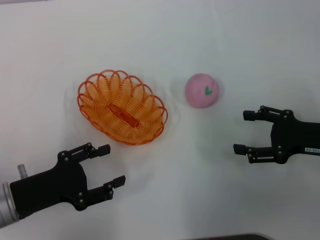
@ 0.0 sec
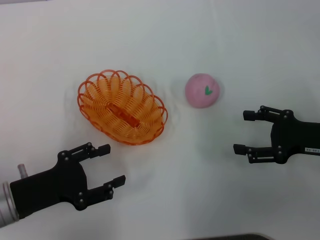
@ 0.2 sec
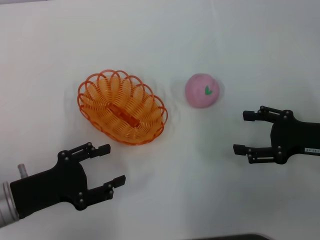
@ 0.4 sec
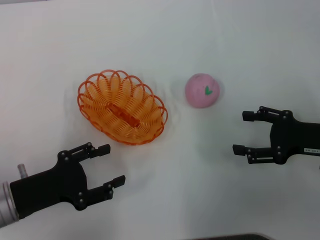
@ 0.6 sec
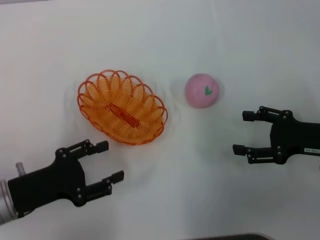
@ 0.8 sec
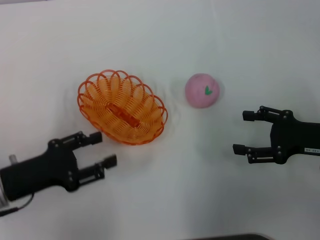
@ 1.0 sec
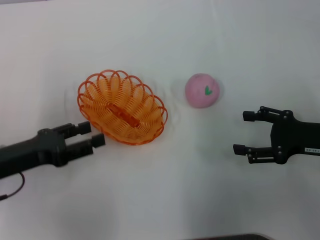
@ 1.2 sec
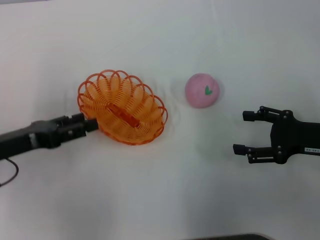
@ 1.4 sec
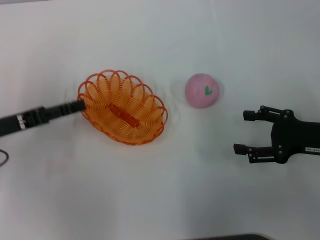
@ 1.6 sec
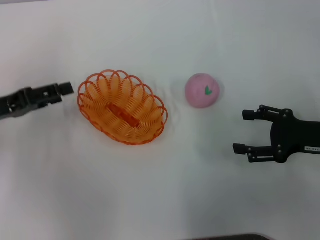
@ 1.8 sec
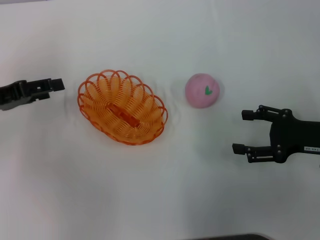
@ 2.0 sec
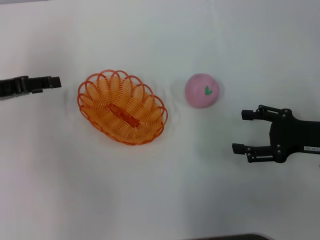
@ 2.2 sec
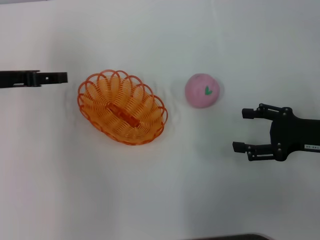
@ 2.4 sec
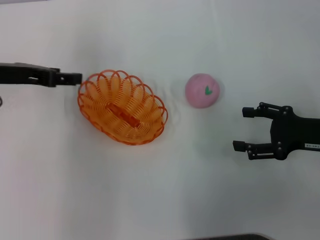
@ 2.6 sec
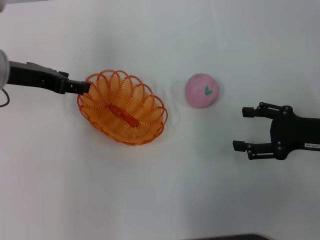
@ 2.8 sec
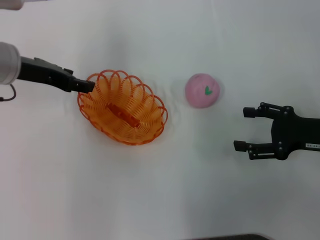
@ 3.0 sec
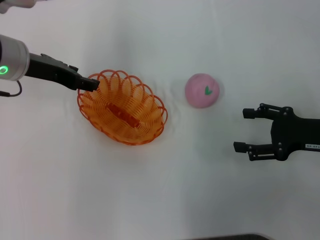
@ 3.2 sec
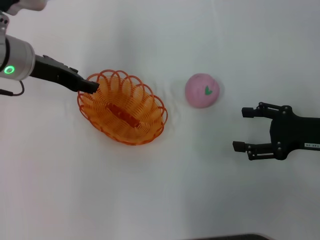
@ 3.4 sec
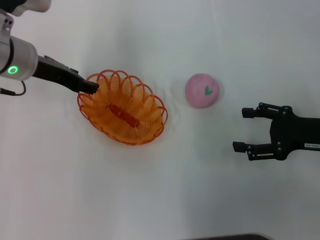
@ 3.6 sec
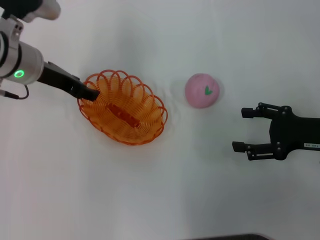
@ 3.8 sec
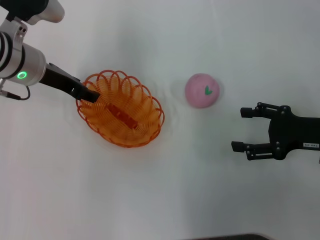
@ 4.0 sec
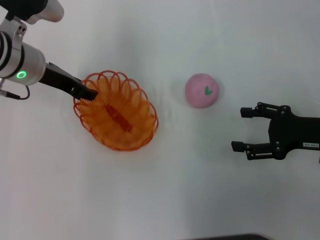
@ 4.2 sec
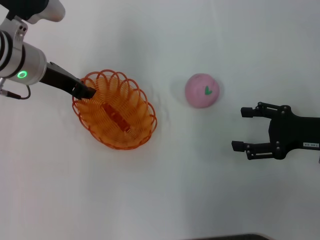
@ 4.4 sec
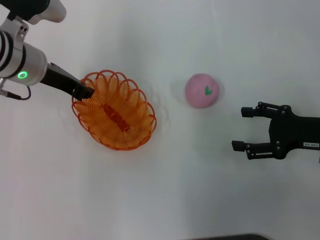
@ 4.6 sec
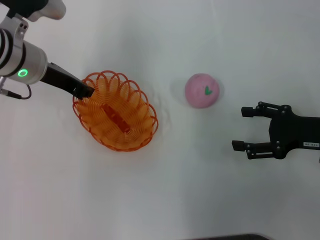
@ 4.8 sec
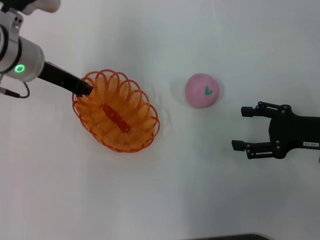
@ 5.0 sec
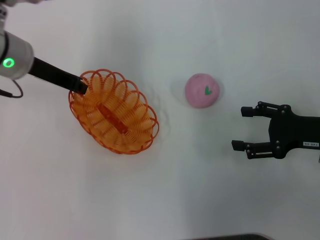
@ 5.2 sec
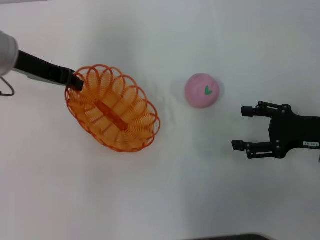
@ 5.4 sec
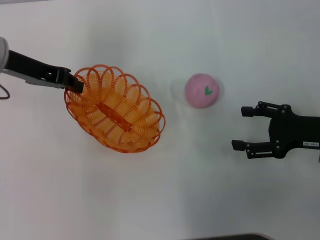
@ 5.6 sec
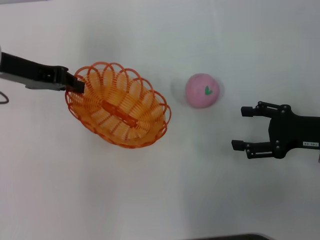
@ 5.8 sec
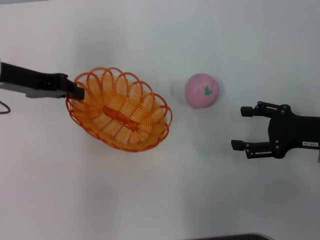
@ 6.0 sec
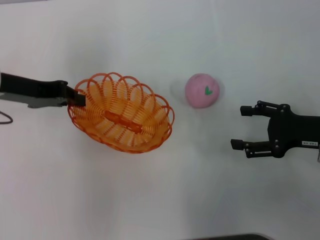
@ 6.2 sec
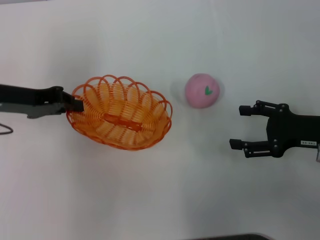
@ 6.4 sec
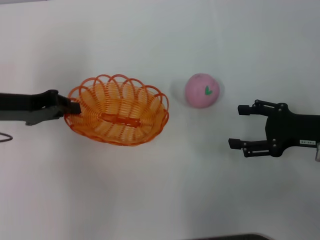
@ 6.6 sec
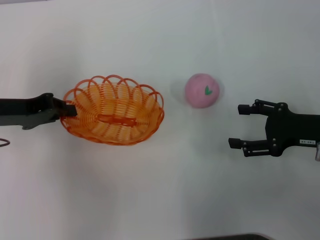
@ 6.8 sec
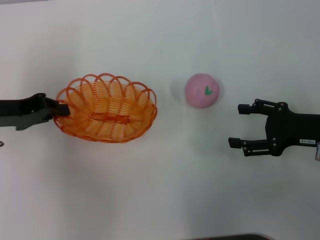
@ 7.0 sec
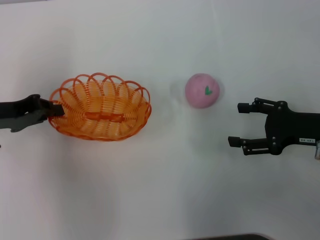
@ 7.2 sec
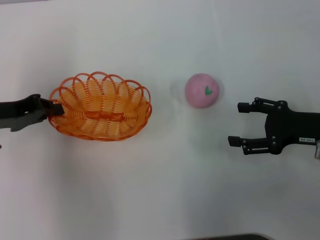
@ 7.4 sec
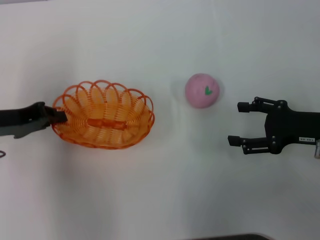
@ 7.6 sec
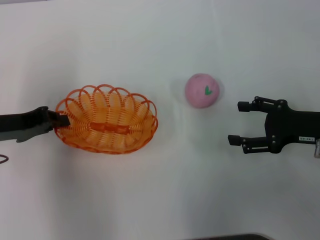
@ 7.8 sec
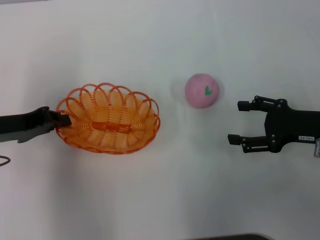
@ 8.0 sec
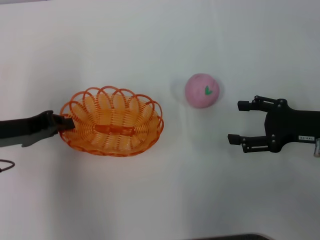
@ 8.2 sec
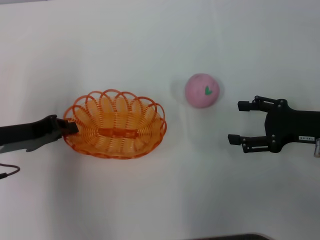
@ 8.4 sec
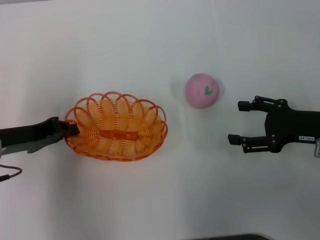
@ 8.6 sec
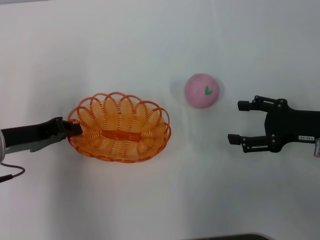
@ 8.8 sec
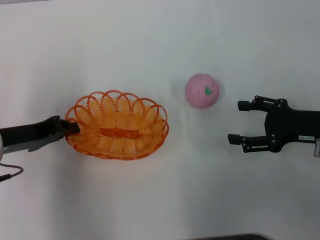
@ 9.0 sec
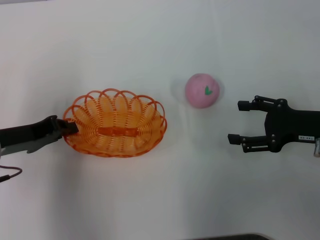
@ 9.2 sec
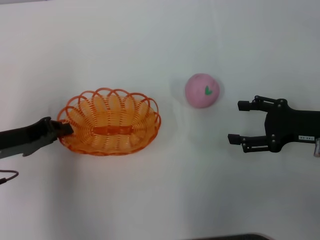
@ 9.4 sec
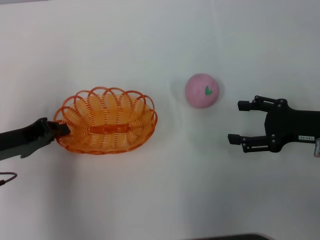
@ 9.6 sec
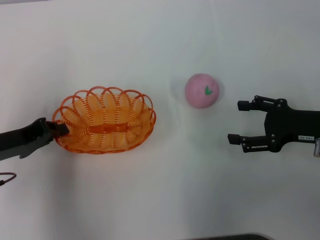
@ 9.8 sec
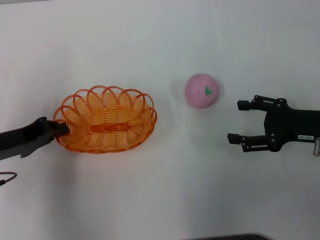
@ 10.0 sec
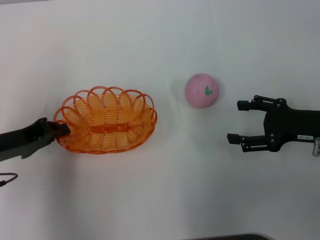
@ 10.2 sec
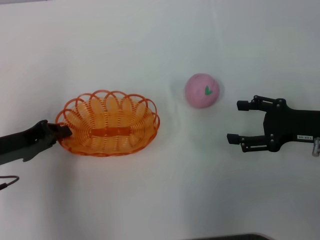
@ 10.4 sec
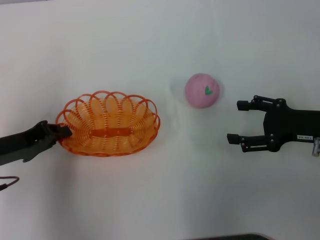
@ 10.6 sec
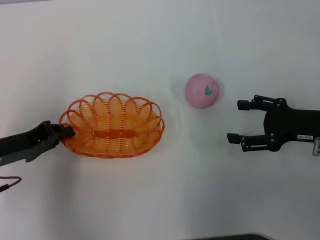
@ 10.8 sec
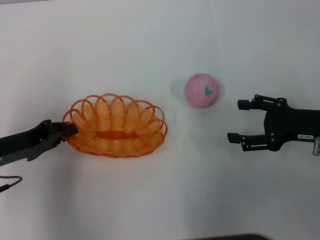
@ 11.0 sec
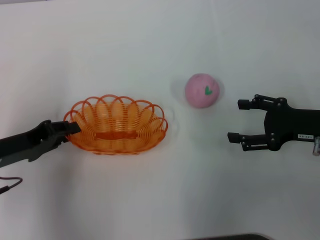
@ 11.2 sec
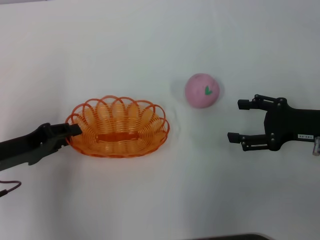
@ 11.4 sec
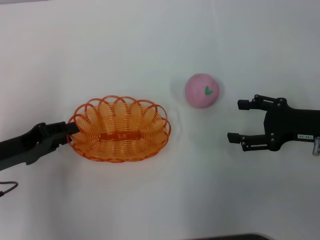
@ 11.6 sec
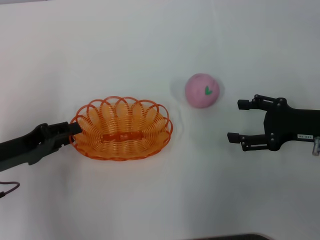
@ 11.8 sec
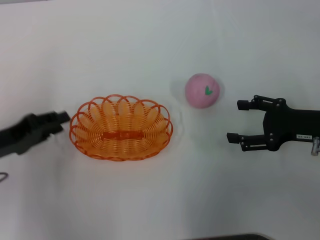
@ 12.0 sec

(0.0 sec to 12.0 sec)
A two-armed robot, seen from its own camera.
Step, 0.0 sec - 5.6 sec: Pick up the basket with the left gripper.
Step, 5.8 sec - 12.0 sec: Place the basket in the center of view with the left gripper.
0.0 sec - 1.6 sec: The left gripper moves forward and upward, some 10 cm.
1.6 sec - 3.0 sec: The left gripper shifts some 15 cm forward, to the right and upward.
3.0 sec - 4.4 sec: The grippers make only small movements.
4.4 sec - 6.0 sec: The left gripper moves to the left, about 5 cm, and closes up.
6.0 sec - 7.6 sec: The left gripper is displaced backward and downward by about 10 cm.
7.6 sec - 10.4 sec: The grippers make only small movements.
10.4 sec - 12.0 sec: The left gripper opens.

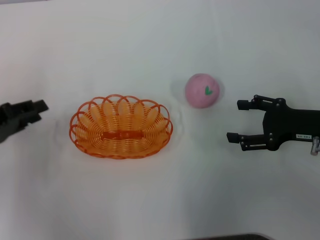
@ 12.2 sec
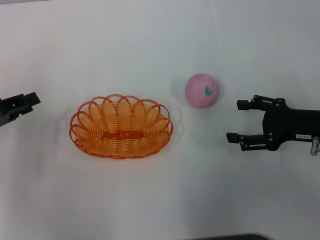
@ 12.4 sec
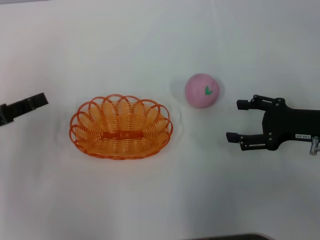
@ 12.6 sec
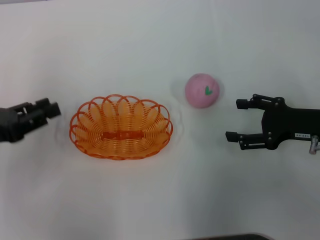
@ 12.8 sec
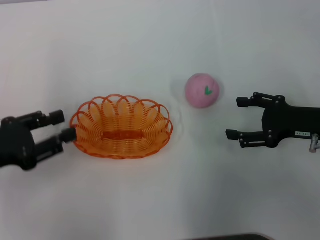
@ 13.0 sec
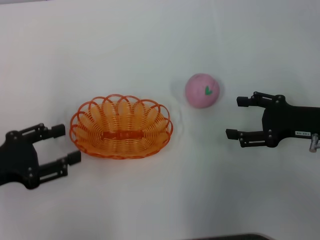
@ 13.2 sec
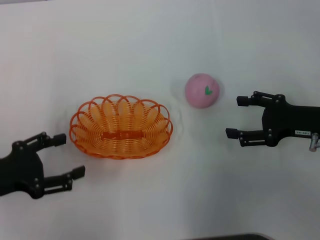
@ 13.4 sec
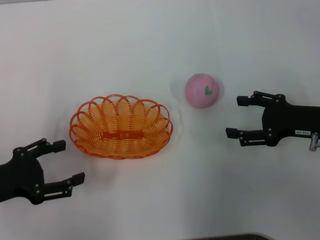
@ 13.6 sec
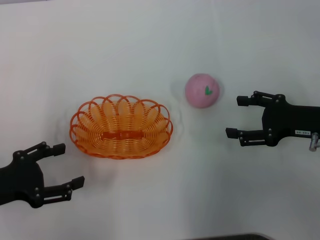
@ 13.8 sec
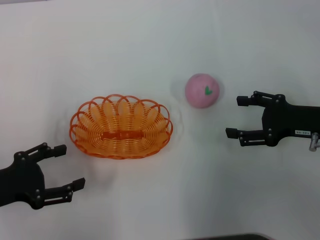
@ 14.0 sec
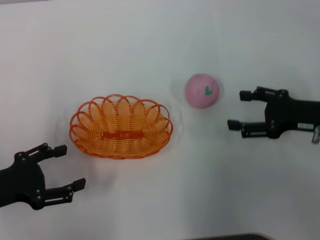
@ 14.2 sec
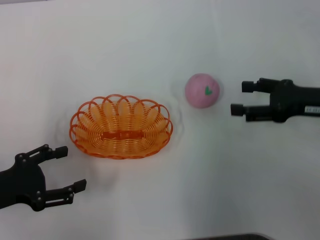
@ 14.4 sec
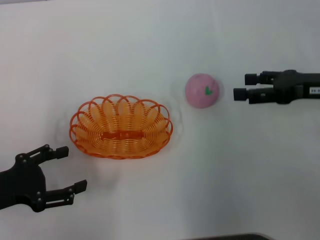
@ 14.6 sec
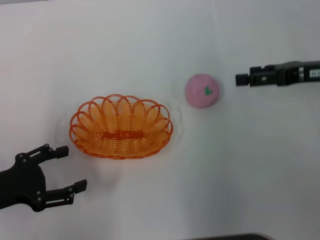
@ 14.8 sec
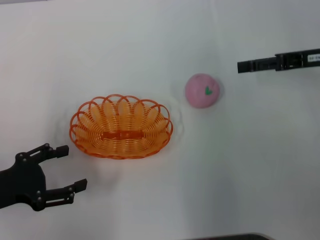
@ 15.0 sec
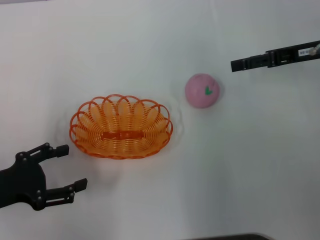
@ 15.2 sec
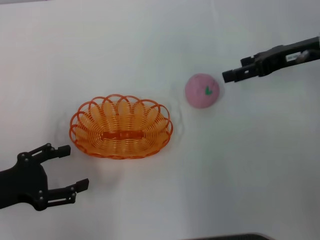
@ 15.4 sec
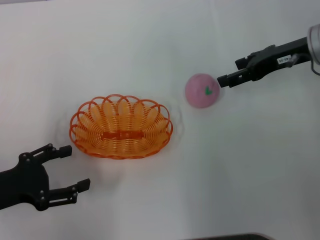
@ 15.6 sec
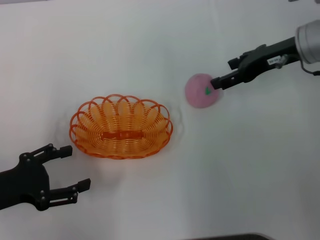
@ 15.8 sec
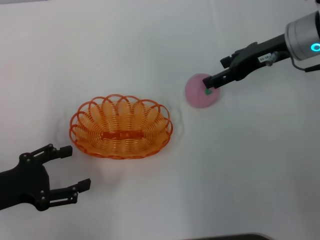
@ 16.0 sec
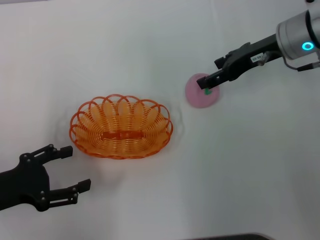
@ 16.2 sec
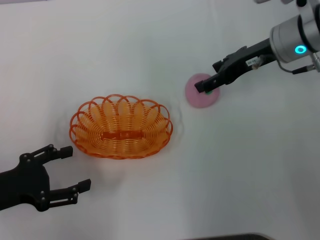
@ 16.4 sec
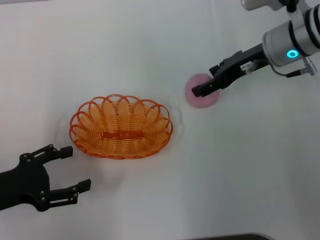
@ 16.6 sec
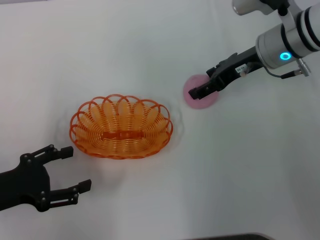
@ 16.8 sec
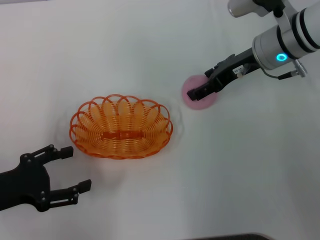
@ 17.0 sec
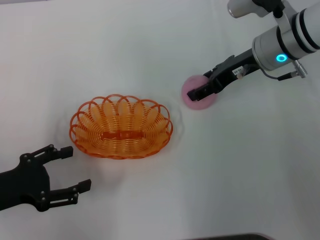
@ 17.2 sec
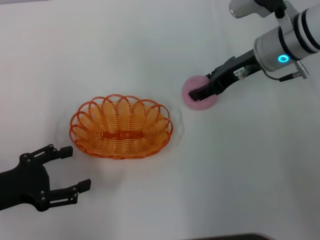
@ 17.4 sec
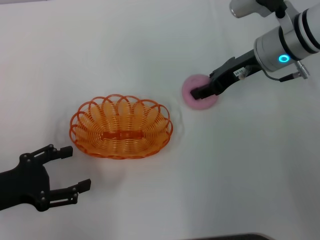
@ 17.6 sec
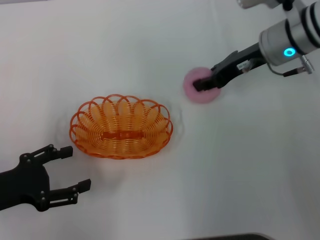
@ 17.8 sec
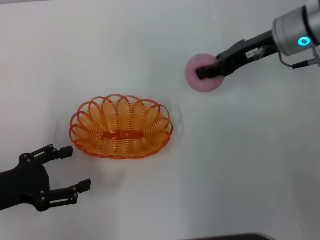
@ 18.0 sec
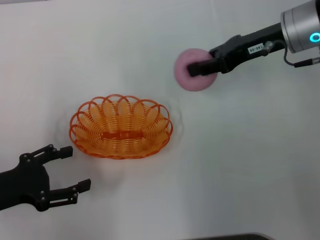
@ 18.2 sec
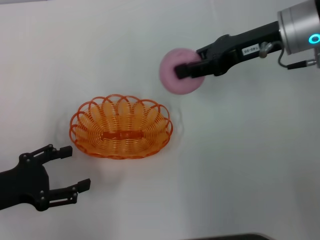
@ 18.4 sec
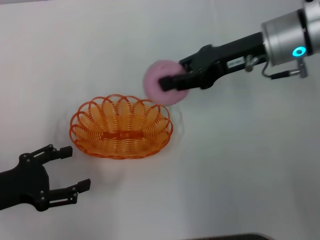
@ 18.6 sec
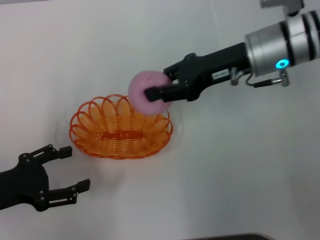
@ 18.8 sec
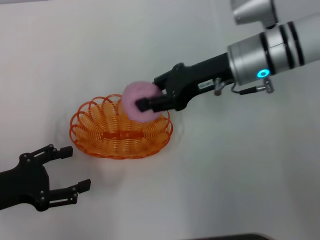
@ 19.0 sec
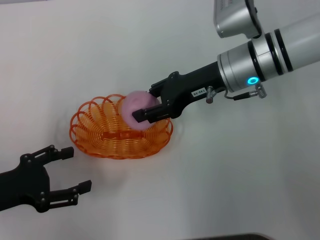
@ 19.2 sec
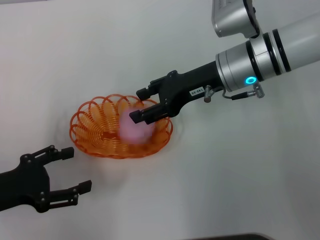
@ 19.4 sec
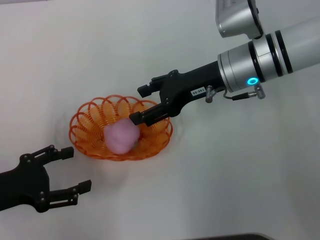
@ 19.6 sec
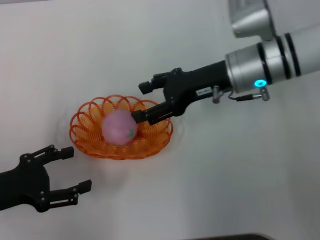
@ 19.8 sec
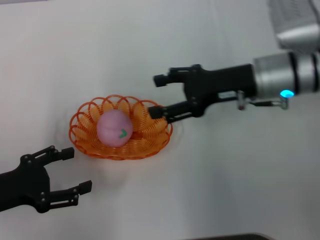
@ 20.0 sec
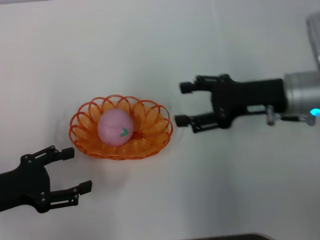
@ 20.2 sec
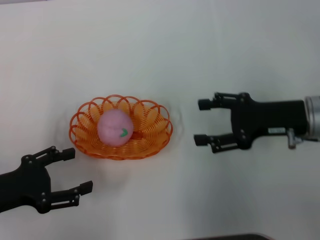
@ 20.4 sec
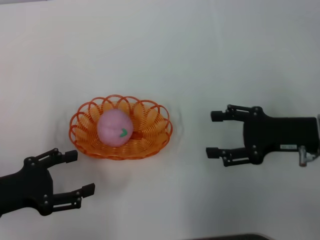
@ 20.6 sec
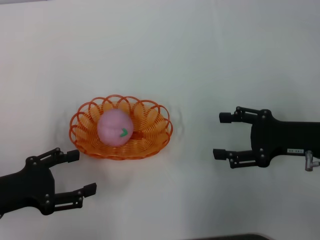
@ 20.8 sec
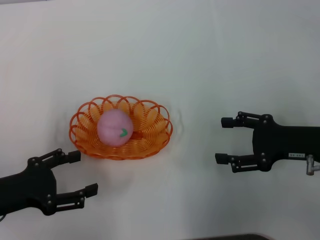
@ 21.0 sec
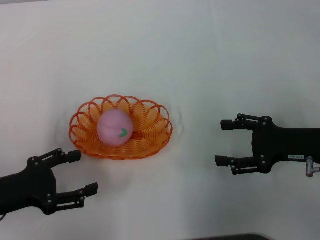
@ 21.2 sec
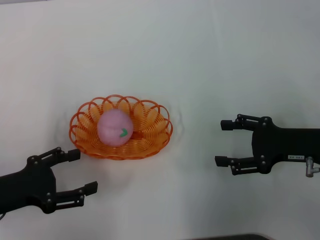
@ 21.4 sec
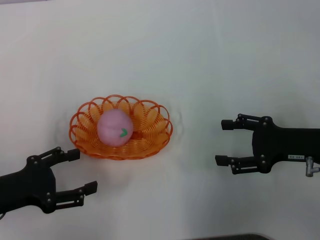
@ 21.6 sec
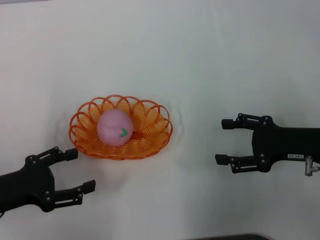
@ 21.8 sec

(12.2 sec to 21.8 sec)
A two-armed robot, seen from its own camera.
Step, 12.2 sec - 18.2 sec: Pick up the peach with the right gripper.
Step, 18.4 sec - 20.0 sec: Place the peach into the basket with the right gripper.
12.2 sec - 13.8 sec: The left gripper moves some 5 cm, and opens its fingers.
13.8 sec - 15.4 sec: The right gripper is displaced forward and upward by some 15 cm.
15.4 sec - 17.0 sec: The right gripper goes about 10 cm to the left.
17.0 sec - 18.6 sec: The right gripper closes up.
18.6 sec - 20.2 sec: The right gripper travels downward and backward by approximately 10 cm, and opens its fingers.
20.2 sec - 21.8 sec: The right gripper travels backward and to the right by approximately 10 cm.
